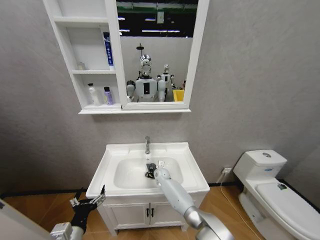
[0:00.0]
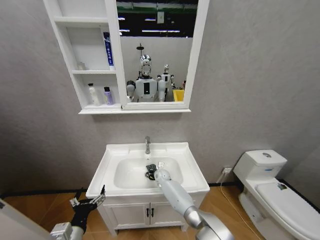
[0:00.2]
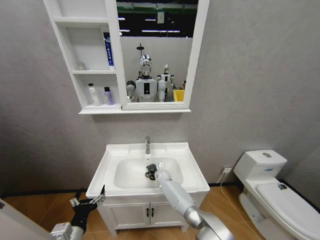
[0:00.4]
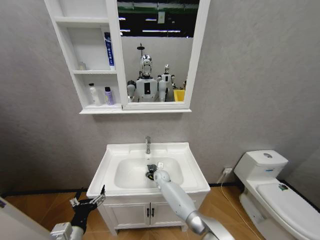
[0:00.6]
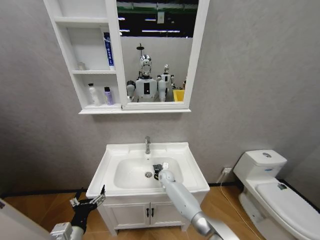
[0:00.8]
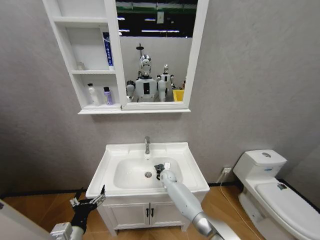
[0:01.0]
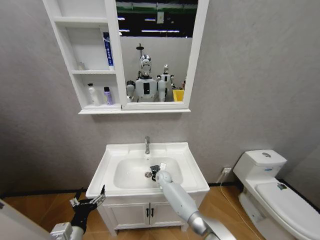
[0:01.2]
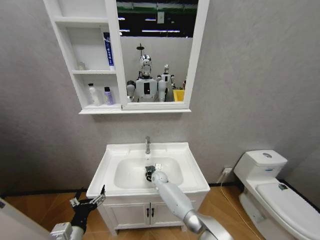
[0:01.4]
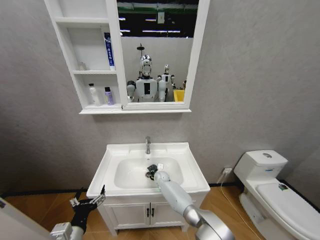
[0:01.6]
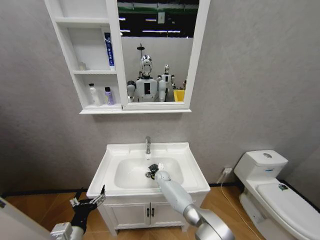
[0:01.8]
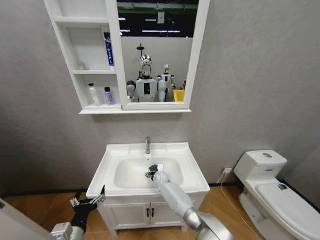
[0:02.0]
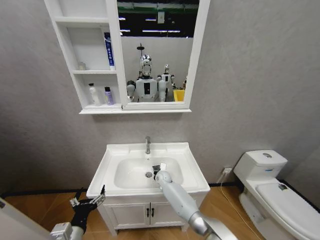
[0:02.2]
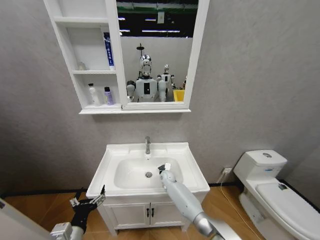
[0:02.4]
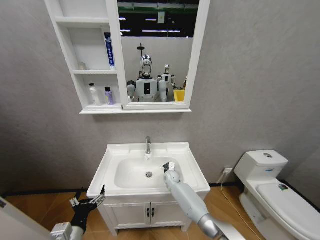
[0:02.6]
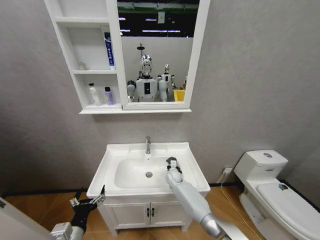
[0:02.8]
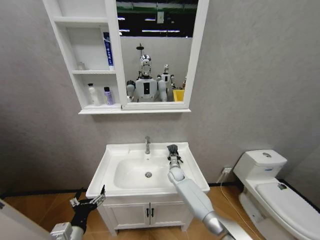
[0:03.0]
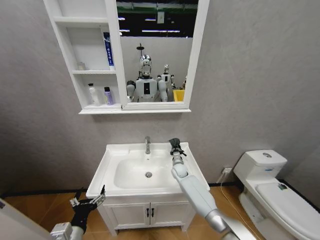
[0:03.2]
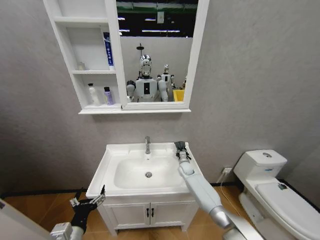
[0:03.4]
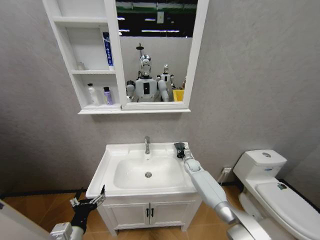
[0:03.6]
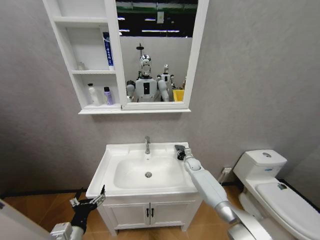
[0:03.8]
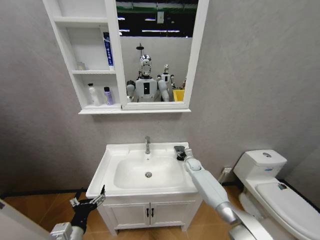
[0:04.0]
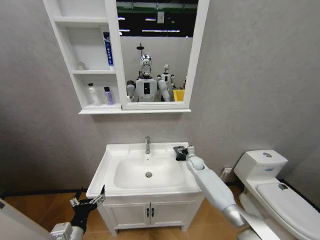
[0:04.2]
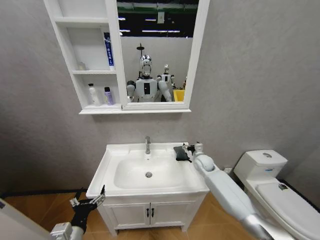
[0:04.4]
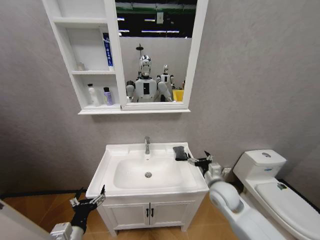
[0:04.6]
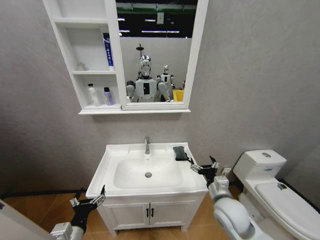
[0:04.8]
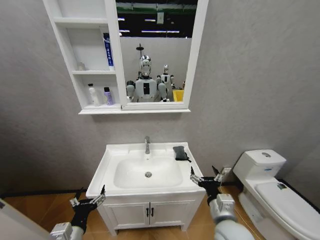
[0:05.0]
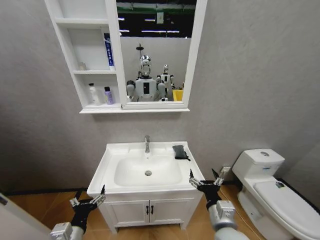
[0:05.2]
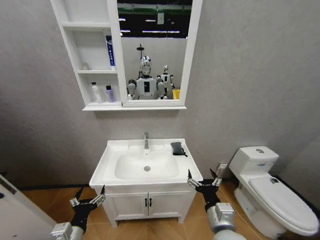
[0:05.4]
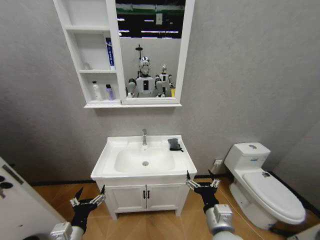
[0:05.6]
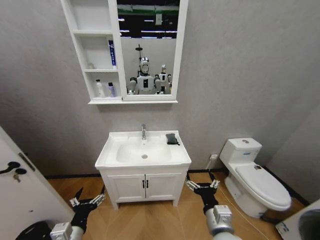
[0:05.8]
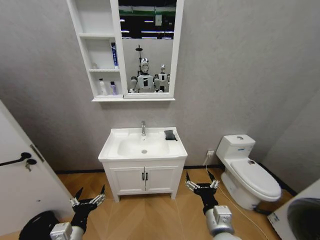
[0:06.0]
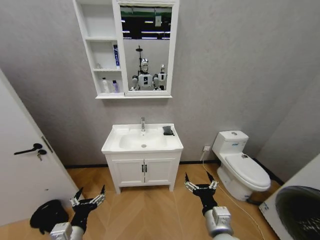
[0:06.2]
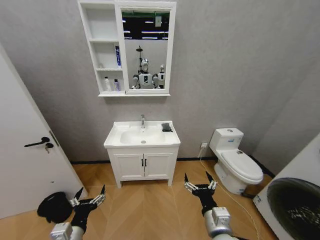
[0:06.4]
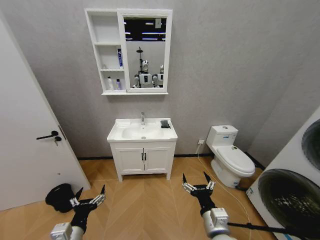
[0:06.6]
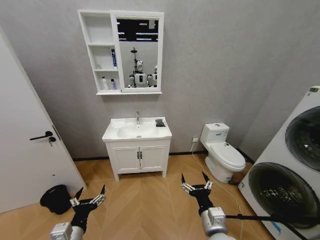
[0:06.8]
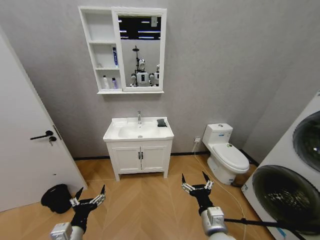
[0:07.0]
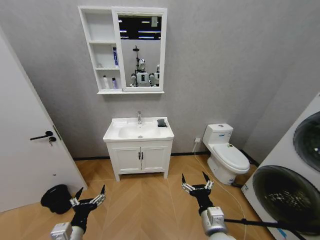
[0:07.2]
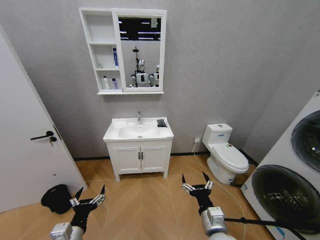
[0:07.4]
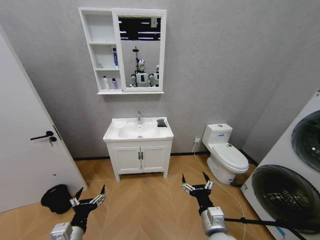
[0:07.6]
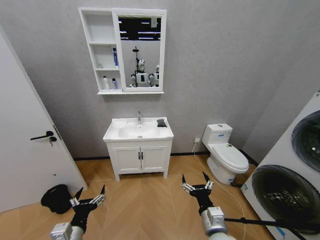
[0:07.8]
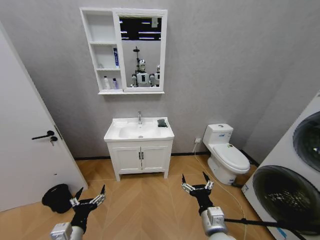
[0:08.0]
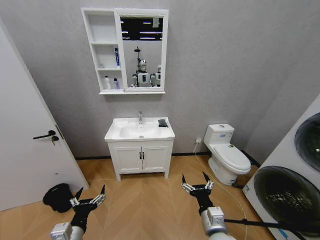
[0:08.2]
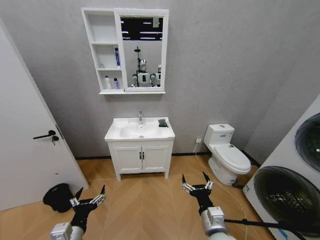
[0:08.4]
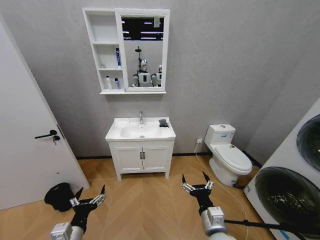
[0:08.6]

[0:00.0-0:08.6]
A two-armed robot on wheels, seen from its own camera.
Task of the whole recording: Move facial cleanser and shampoo from washbasin to cabinet, then wipe washbasin with towel.
0:00.0 to 0:01.4: The grippers stay close to where they were, moving slightly.
0:01.4 to 0:02.8: The right gripper goes some 10 cm to the right.
0:02.8 to 0:04.4: The right gripper goes about 20 cm to the right and upward, and opens.
0:04.4 to 0:05.8: The right gripper goes some 30 cm backward.
0:07.2 to 0:08.6: The two grippers keep their place.
